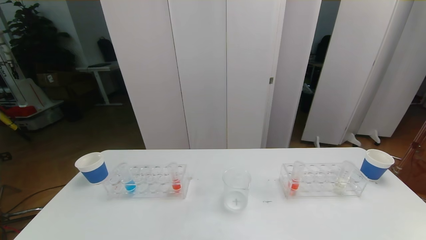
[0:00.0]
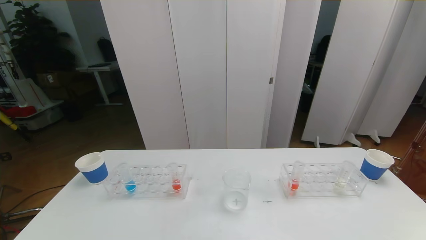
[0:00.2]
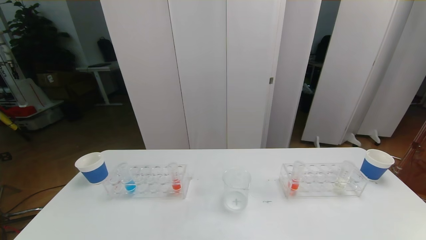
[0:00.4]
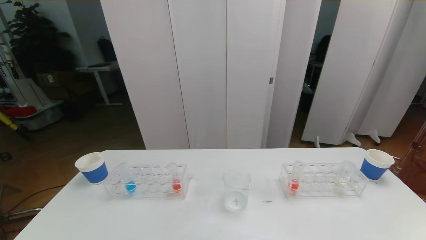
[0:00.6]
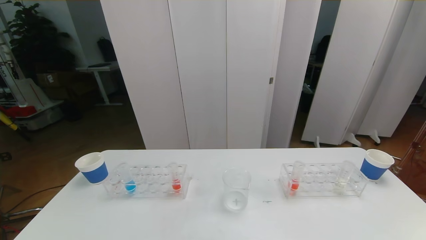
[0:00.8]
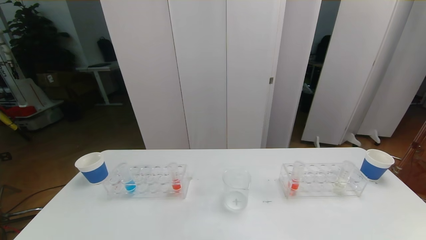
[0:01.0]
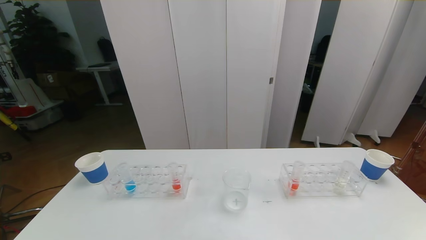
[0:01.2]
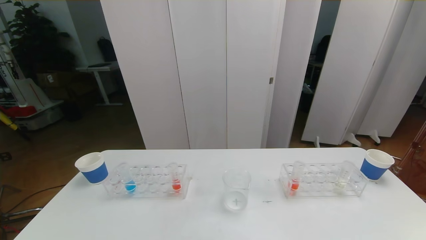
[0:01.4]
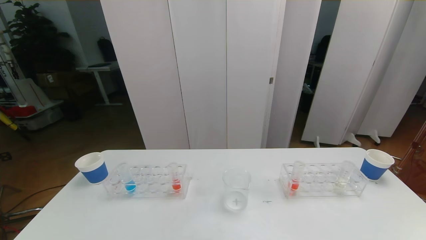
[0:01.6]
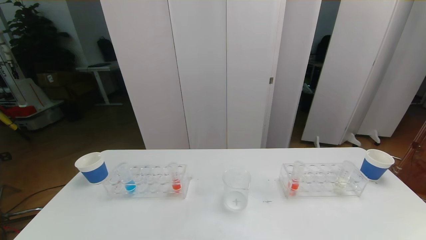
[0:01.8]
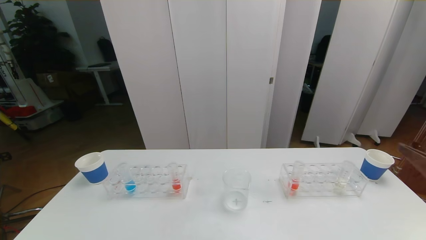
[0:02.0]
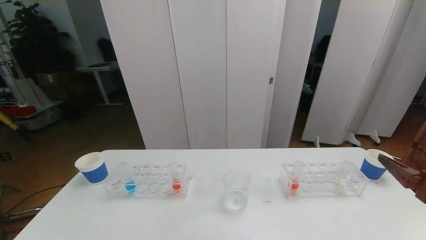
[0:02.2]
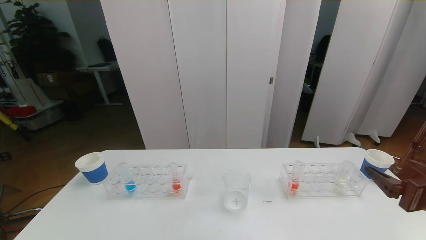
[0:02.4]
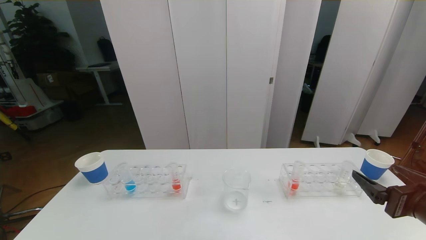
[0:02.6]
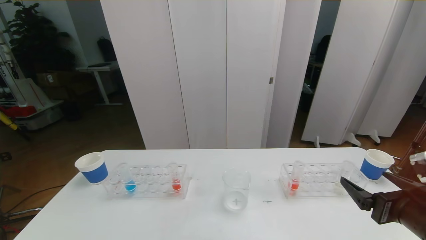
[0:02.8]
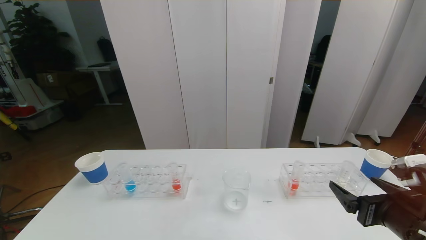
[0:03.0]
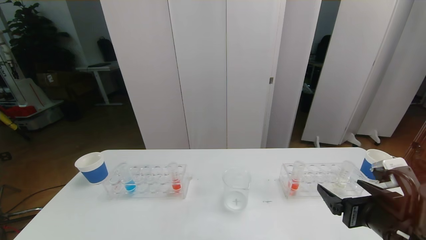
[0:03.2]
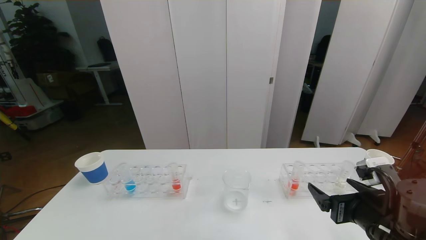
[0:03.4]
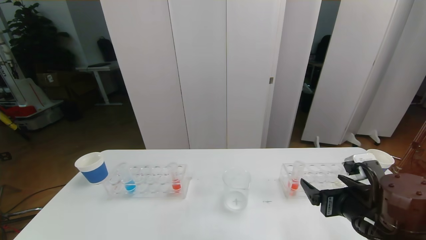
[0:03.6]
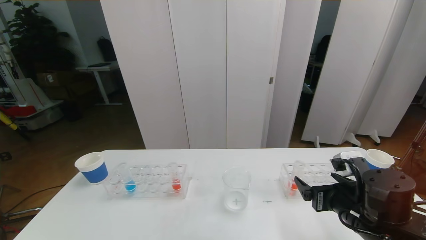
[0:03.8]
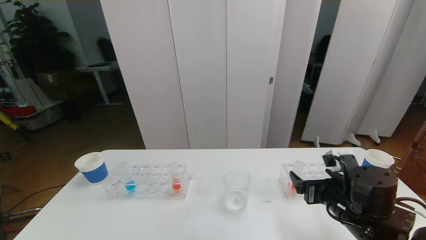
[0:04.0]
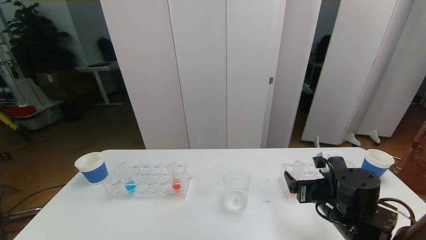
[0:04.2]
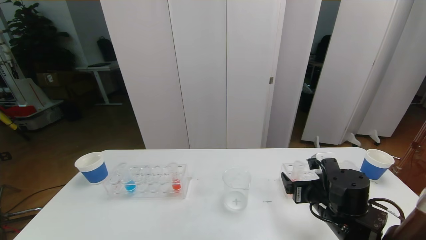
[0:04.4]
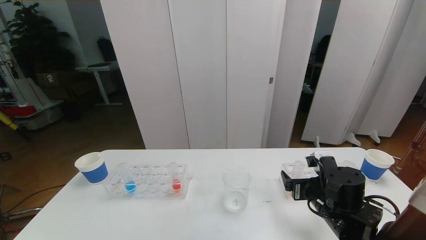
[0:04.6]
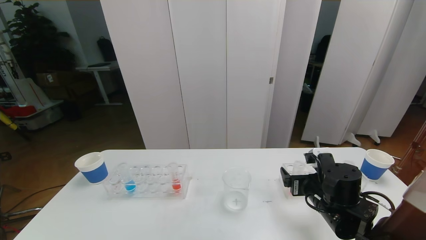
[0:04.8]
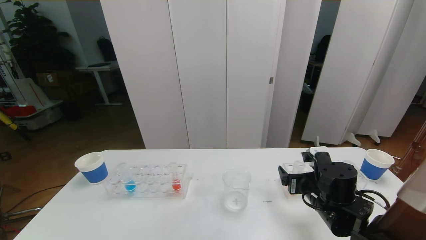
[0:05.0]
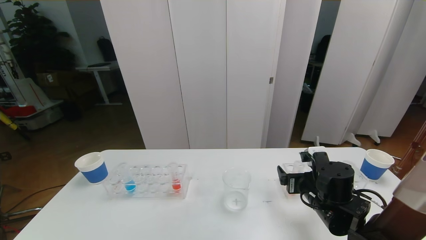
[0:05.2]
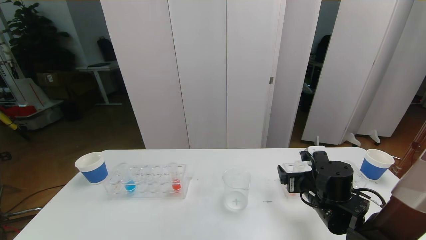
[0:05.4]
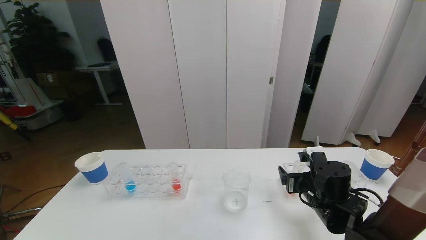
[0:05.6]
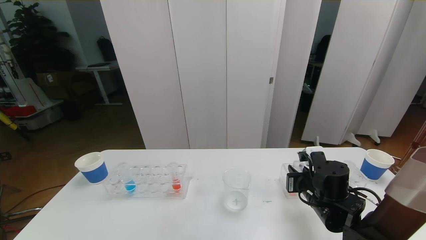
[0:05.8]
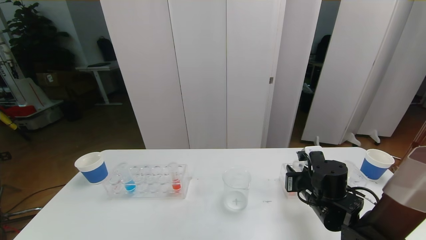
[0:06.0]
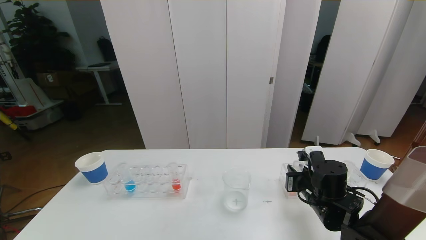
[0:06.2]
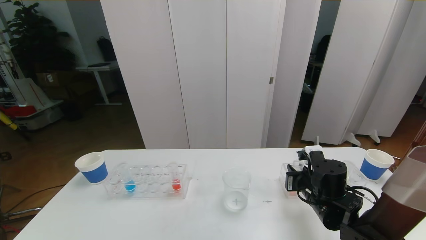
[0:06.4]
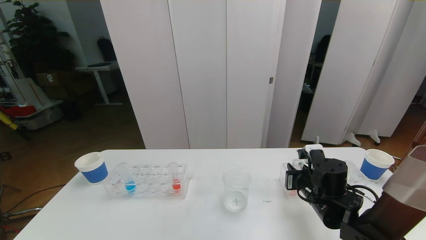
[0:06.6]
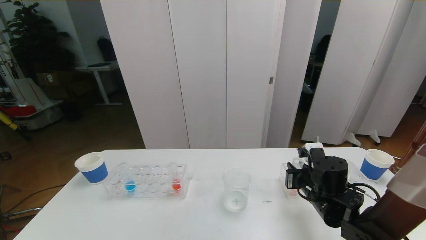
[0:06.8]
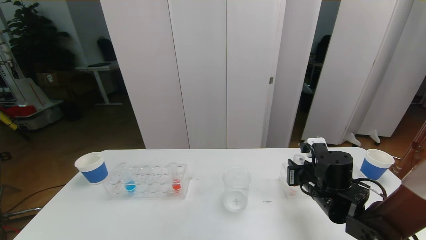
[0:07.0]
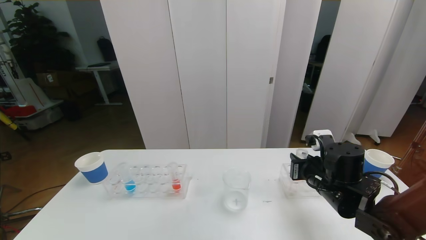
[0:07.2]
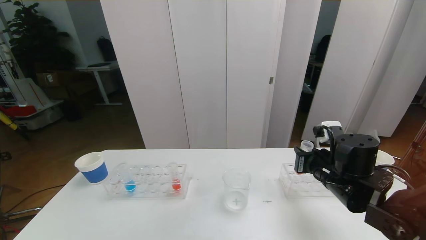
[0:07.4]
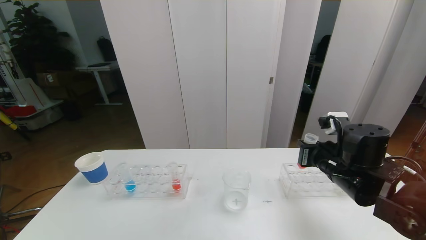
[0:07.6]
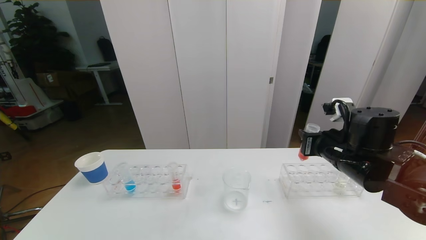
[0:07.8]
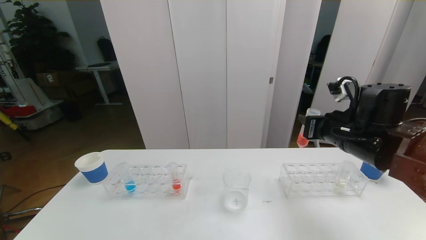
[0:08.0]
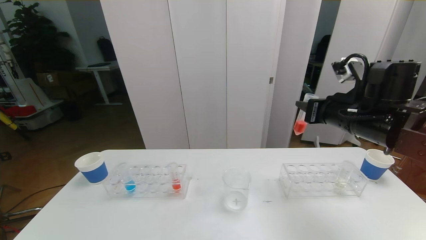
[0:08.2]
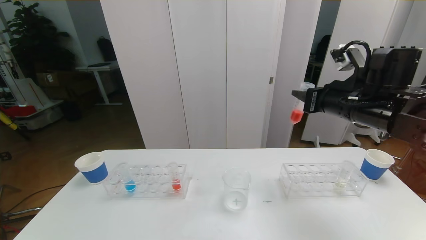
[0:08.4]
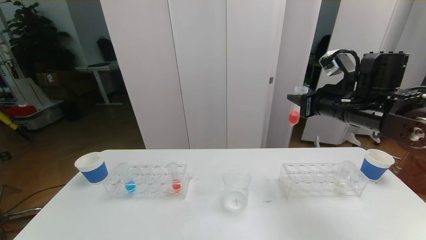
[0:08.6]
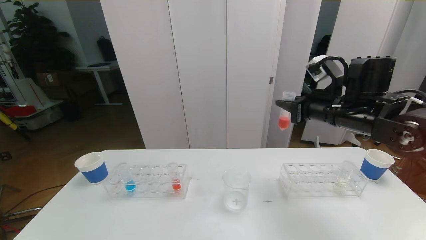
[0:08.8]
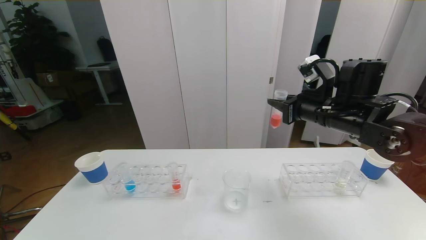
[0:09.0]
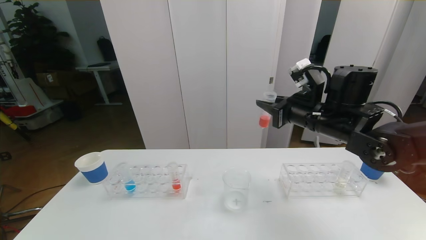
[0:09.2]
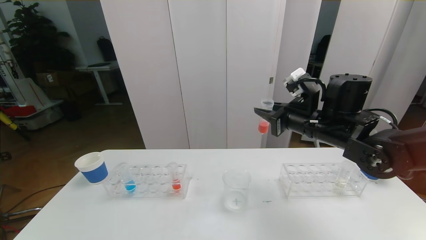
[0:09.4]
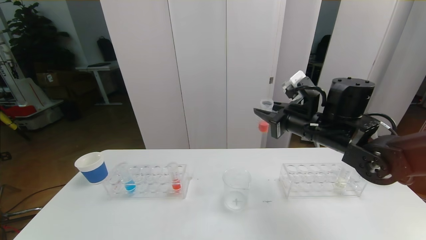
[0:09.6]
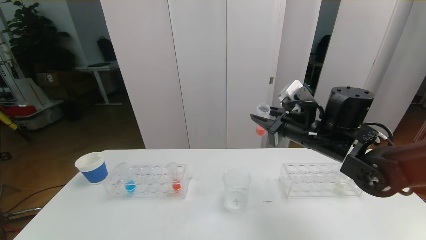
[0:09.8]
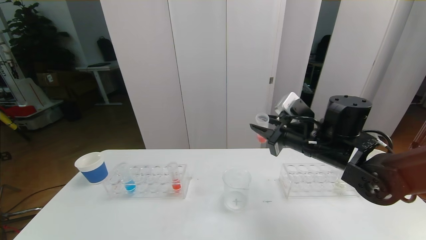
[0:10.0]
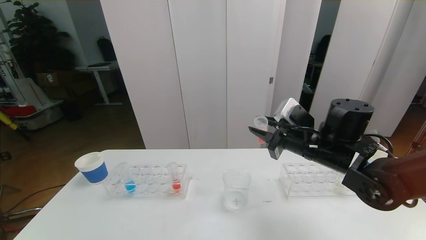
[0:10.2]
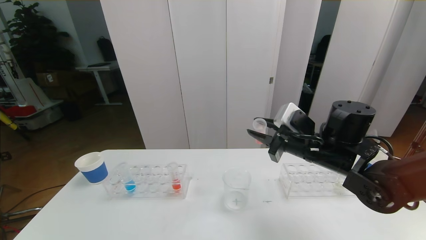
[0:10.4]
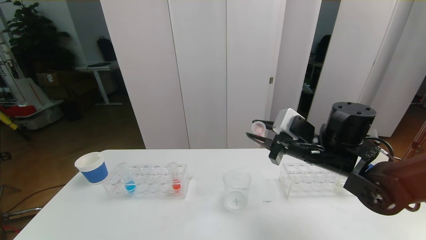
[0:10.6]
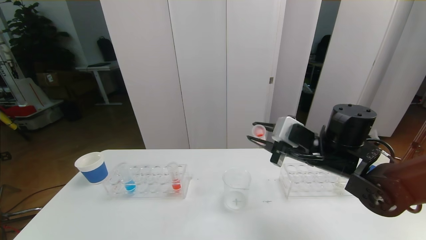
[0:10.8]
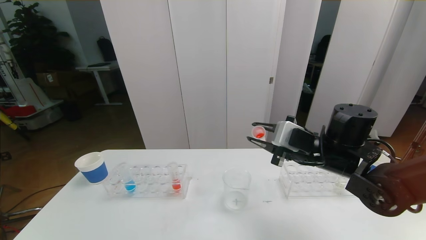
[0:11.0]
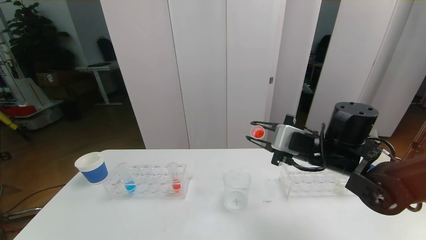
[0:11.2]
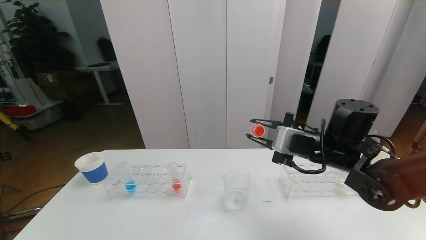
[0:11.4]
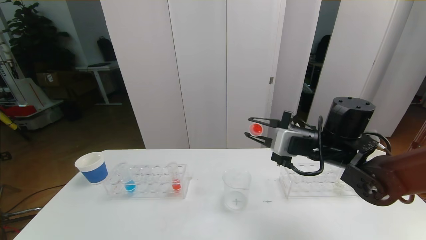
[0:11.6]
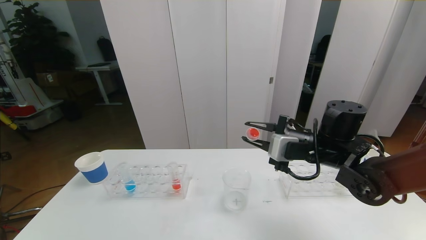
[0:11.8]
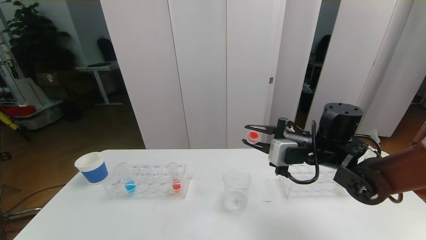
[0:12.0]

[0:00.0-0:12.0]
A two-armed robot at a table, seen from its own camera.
Task of the whole recording: pick up the test tube with red pigment the test tube with blue pigment and the test tube with white pigment by grippers and pour them into the beaker.
1.6 to 3.0 s: The right gripper is displaced downward, forward and to the left by roughly 15 cm.
3.0 to 4.4 s: The right gripper heads forward, to the left and downward, covering roughly 15 cm.
4.4 to 6.0 s: The right gripper closes up.
6.0 to 7.6 s: The right gripper shifts about 10 cm upward.
7.6 to 9.0 s: The right gripper heads upward and forward, covering some 10 cm.
9.0 to 10.4 s: The right gripper travels downward by roughly 5 cm.

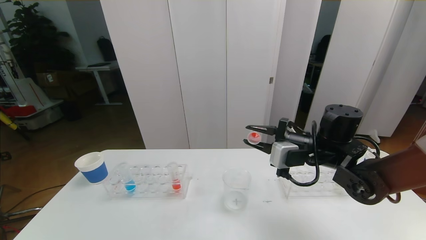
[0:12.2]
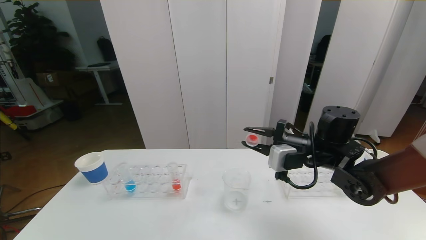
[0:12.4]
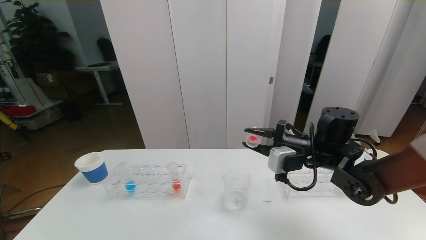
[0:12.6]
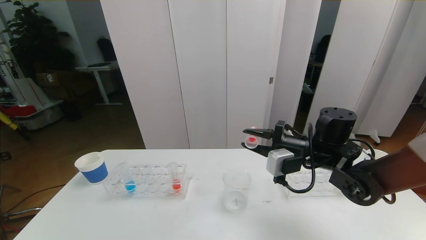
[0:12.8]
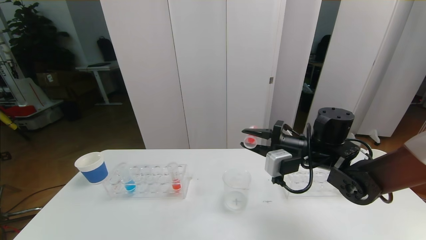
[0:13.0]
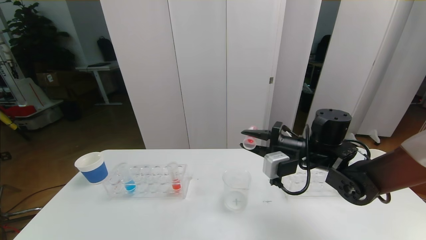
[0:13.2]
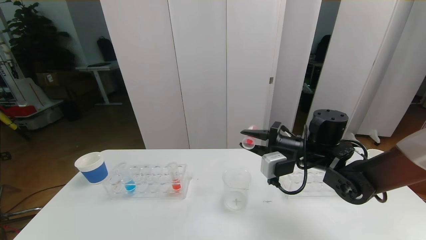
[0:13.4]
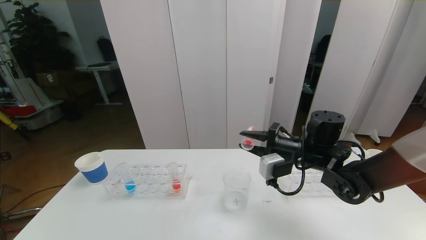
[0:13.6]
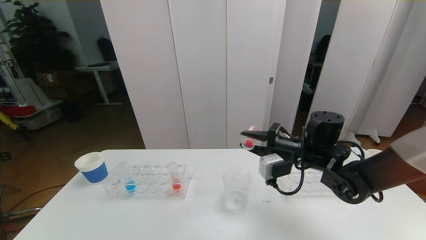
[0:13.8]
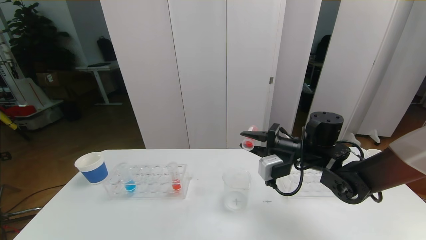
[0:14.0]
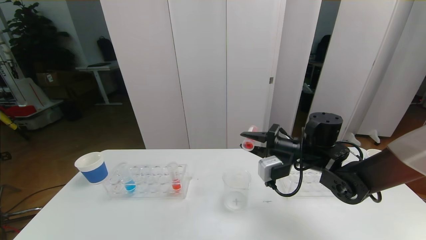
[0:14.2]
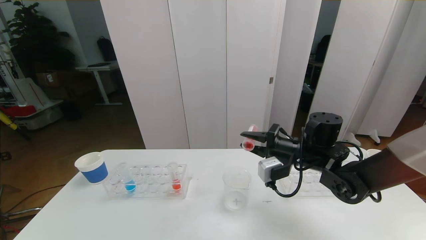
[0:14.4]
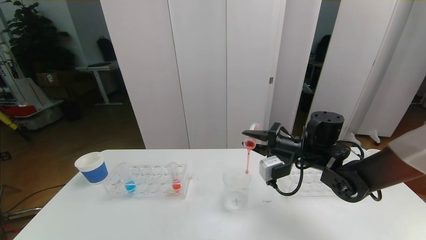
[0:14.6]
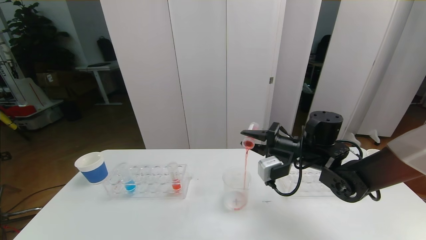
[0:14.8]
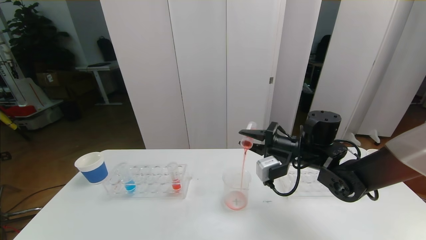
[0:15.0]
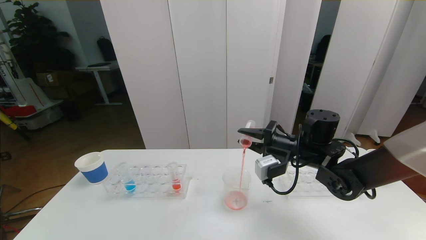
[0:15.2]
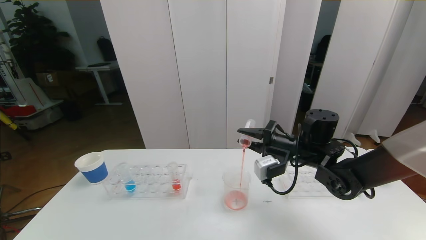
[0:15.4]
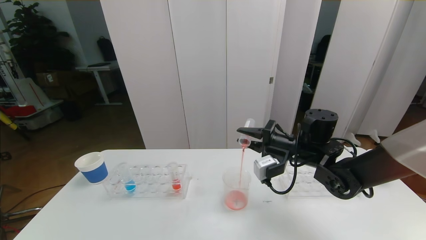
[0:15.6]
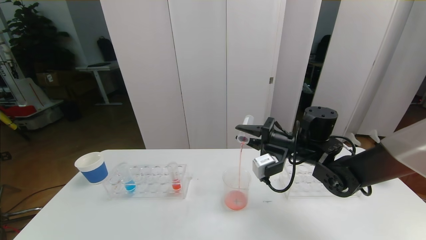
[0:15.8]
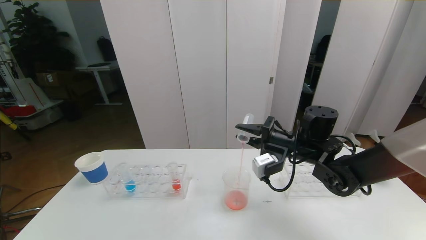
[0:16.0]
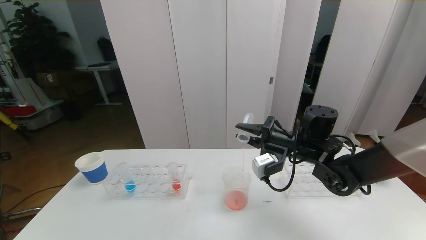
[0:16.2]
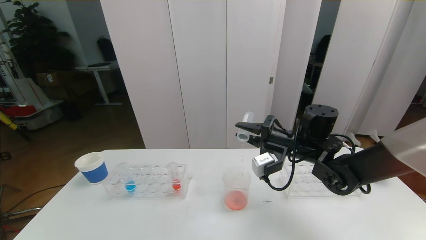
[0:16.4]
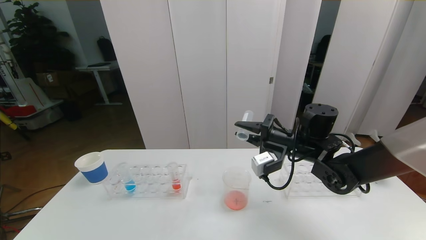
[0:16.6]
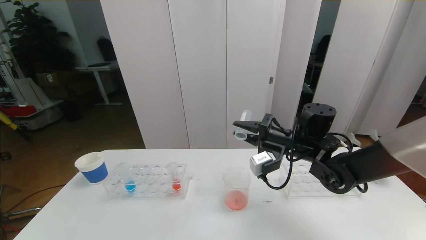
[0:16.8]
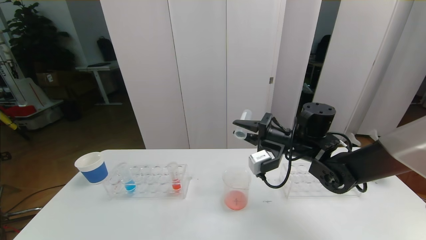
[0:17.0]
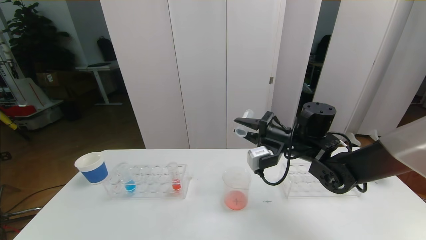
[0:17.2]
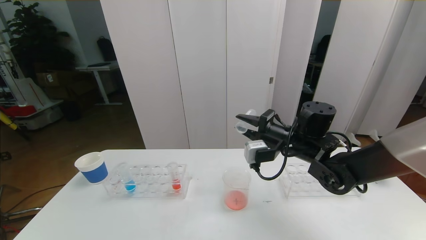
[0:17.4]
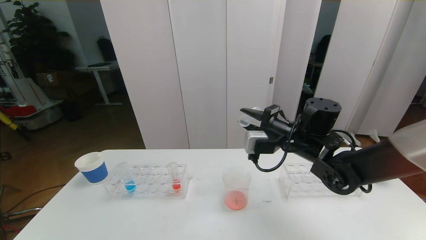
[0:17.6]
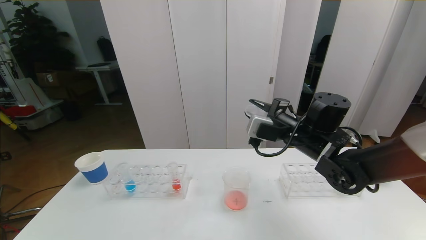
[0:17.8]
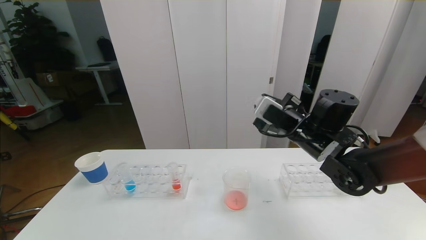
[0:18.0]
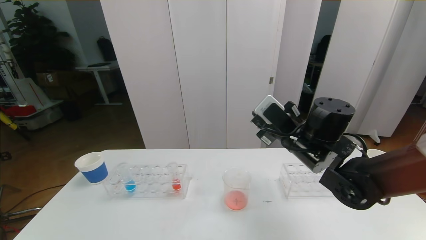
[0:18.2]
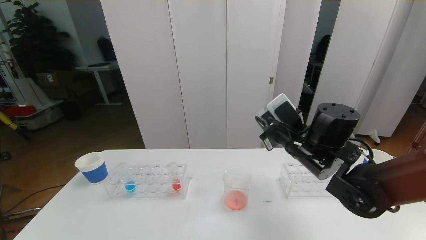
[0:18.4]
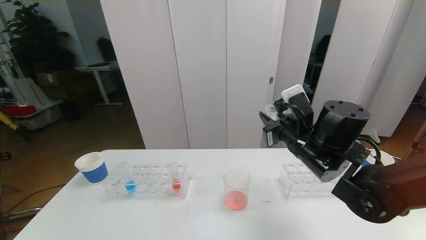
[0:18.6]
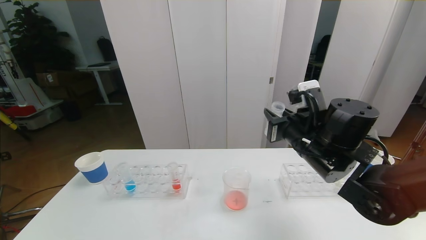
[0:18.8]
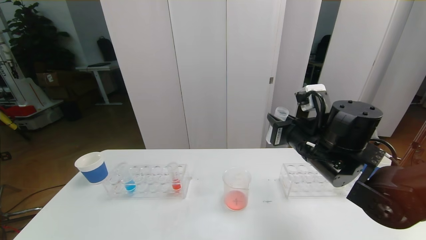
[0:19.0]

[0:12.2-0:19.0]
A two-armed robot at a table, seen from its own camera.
Task of the whole recording: pick up the test tube with red pigment the test tube with blue pigment and the test tube with white pigment by grippers and pour them into the beaker.
12.2 to 13.6 s: The grippers make only small movements.
13.6 to 16.2 s: The grippers stay close to where they were, moving slightly.
17.6 to 19.0 s: The right gripper goes approximately 5 cm backward.
